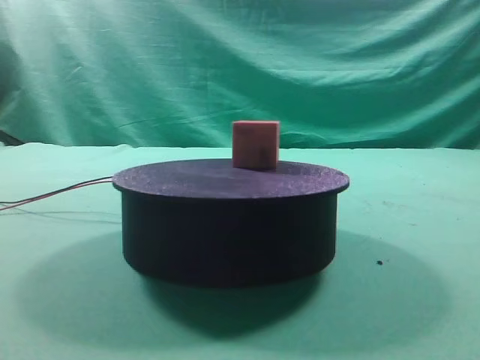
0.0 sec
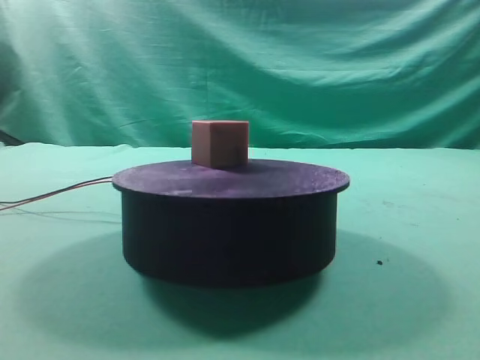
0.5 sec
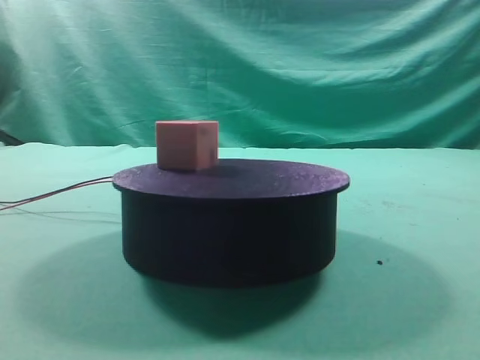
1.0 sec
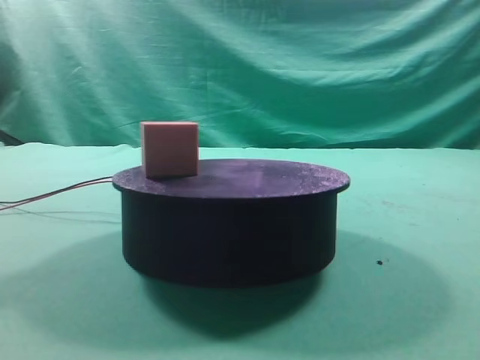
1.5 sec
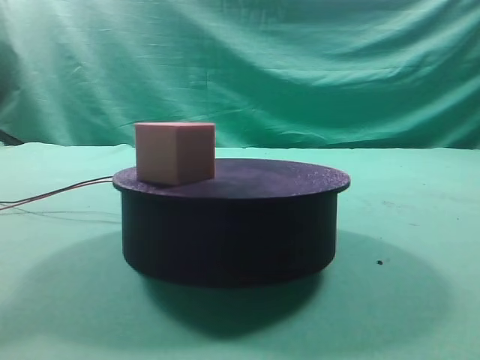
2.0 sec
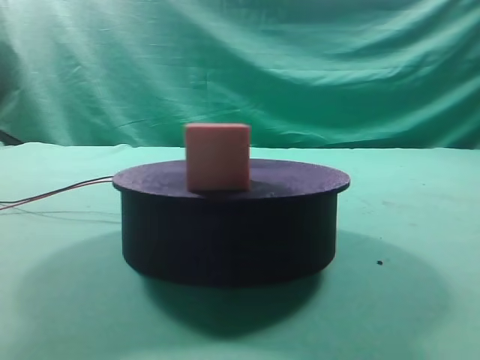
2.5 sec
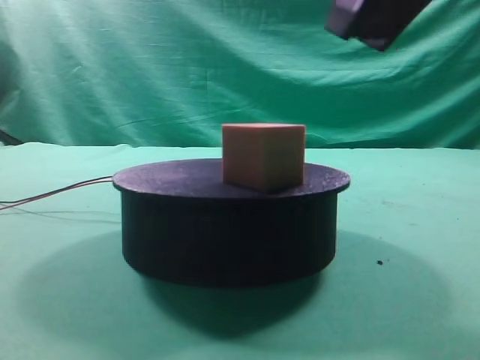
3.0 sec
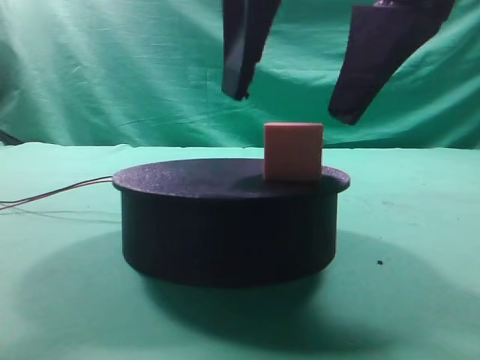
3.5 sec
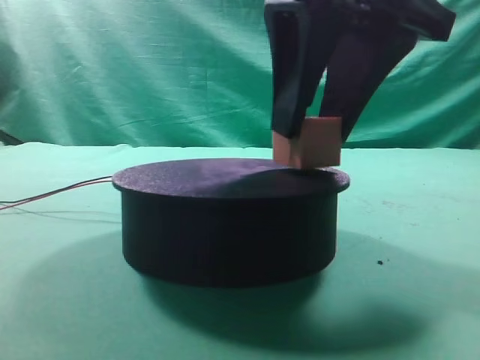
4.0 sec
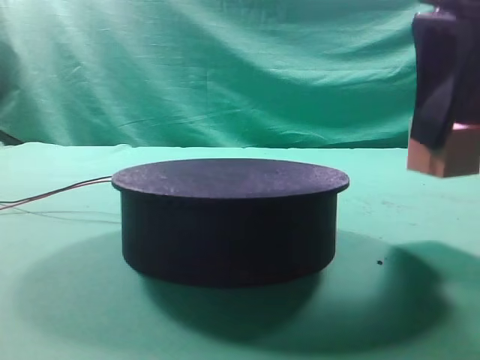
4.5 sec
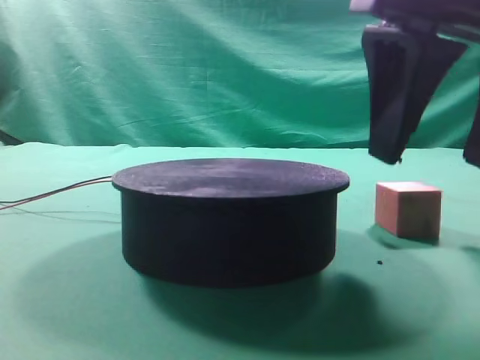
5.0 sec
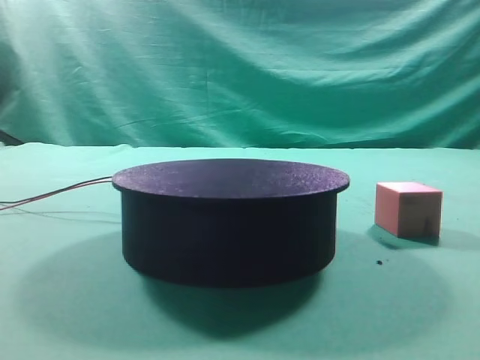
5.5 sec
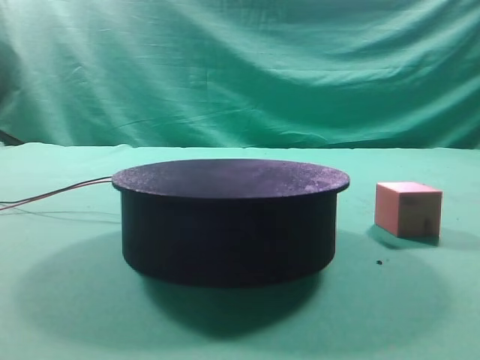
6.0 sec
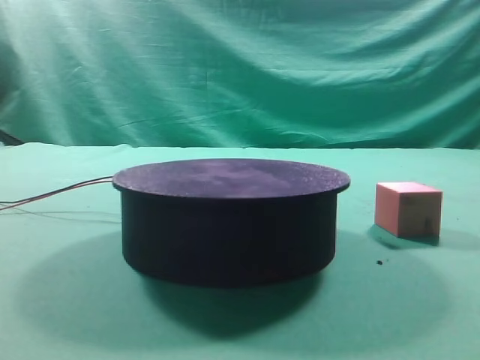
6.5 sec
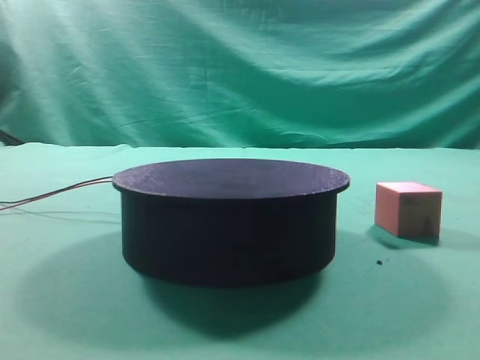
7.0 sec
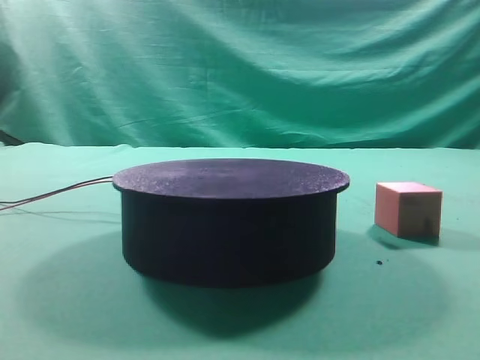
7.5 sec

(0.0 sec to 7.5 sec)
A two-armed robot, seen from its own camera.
Task of the whole recording: grasp the rotating cube-shaped block on the turntable and place it on the table.
Step, 0.0 sec - 4.0 sec: Grasp the rotating cube-shaped block on the turntable.
Step, 4.5 sec - 5.0 sec: Place the cube on the desk.

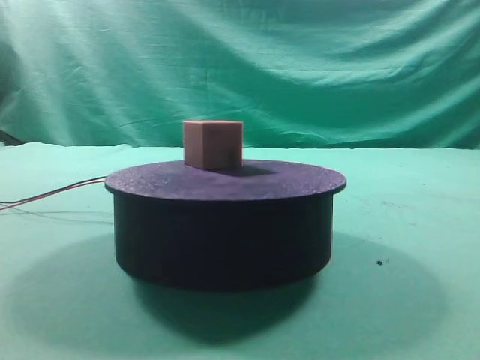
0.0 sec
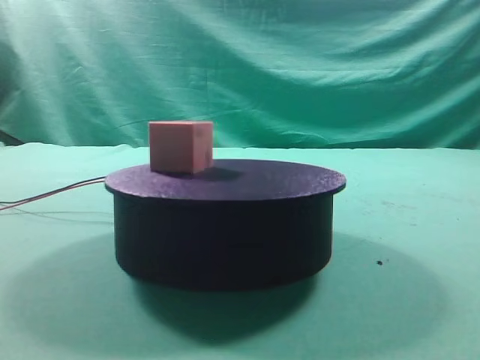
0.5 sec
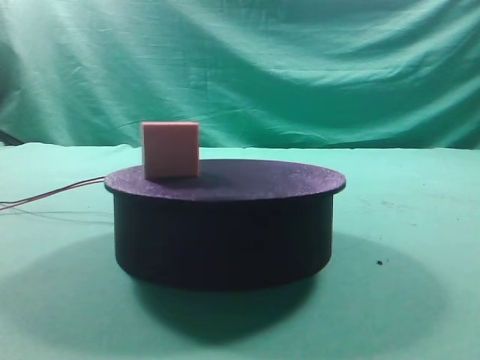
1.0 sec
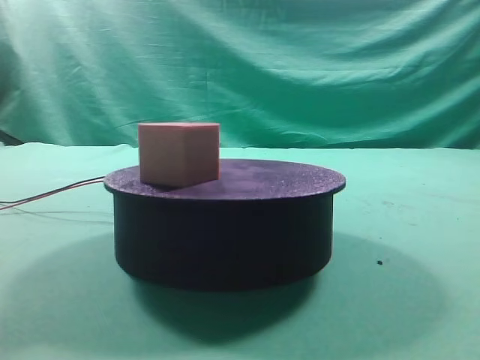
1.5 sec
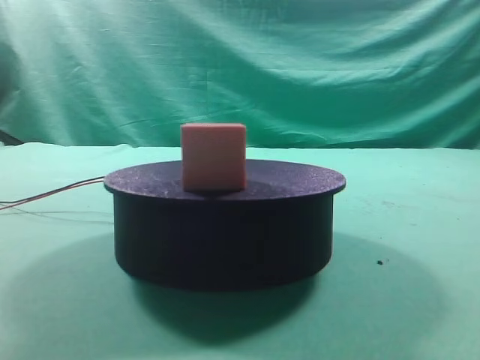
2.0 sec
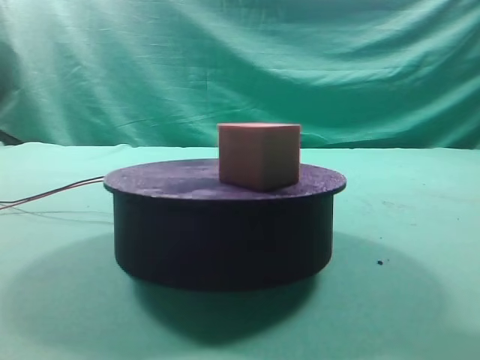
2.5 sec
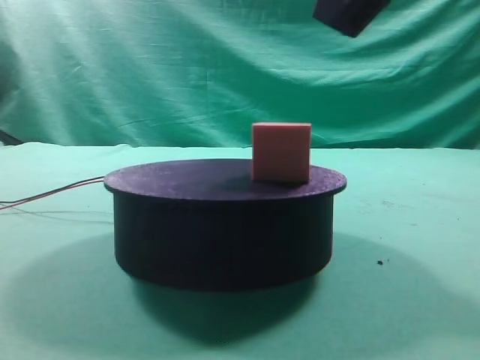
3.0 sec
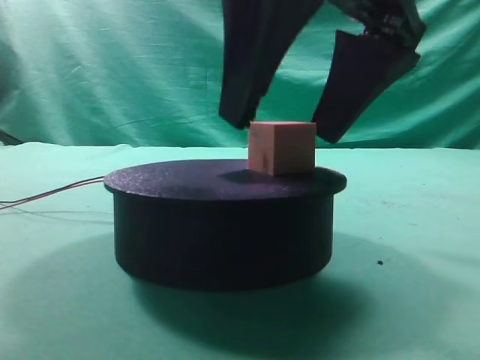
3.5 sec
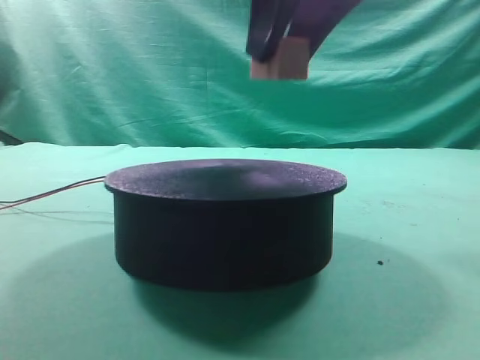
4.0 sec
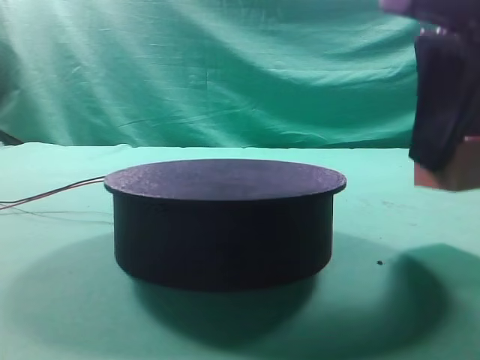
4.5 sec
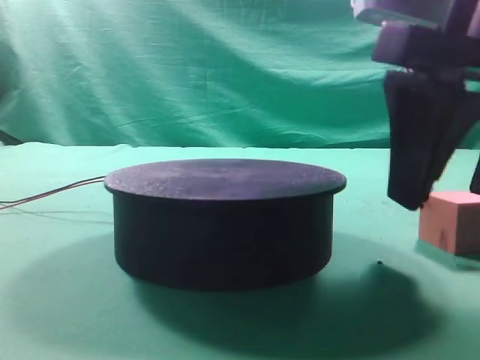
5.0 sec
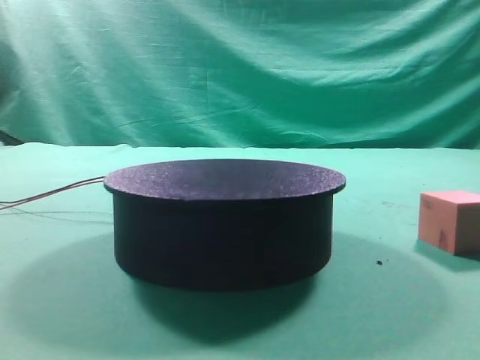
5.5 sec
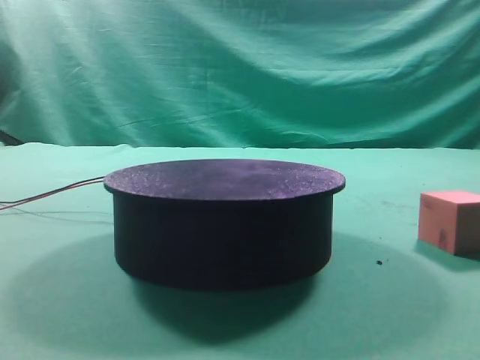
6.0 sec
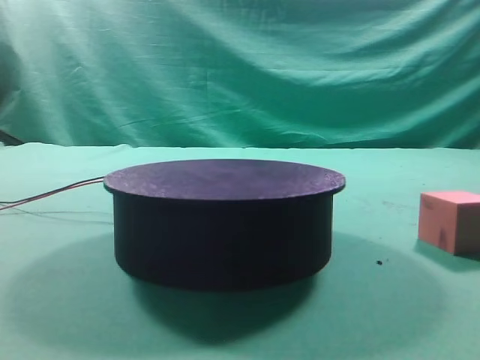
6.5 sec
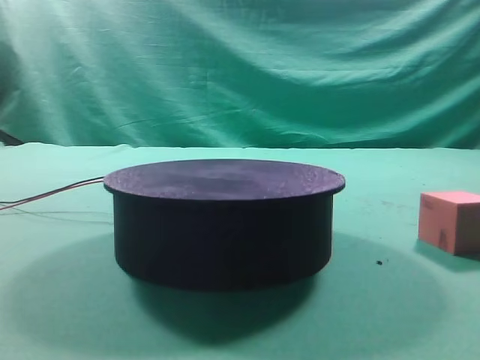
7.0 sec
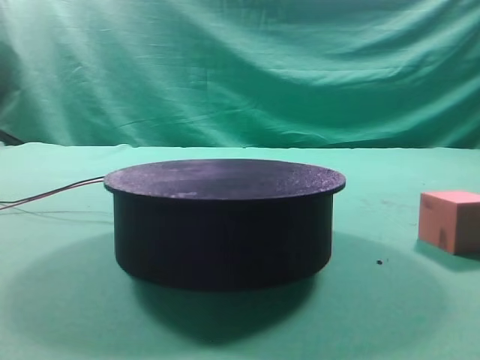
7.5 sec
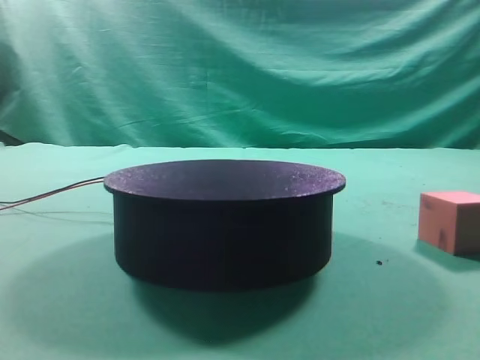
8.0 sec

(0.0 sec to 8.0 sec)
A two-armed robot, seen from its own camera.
Task of the whole recording: grasp the rotating cube-shaped block on the turntable and place it on the table.
Step, 0.0 sec - 3.5 sec: Grasp the rotating cube-shaped block on the turntable.
Step, 4.0 sec - 5.0 sec: Place the cube on the desk.

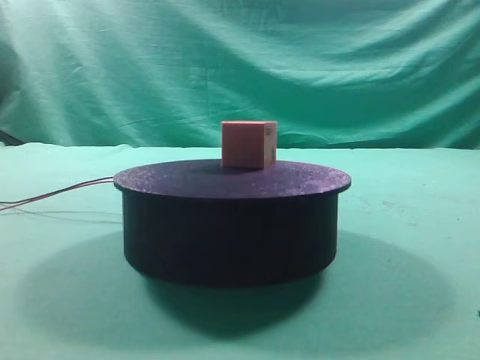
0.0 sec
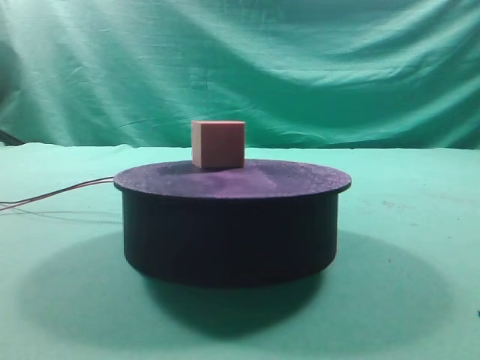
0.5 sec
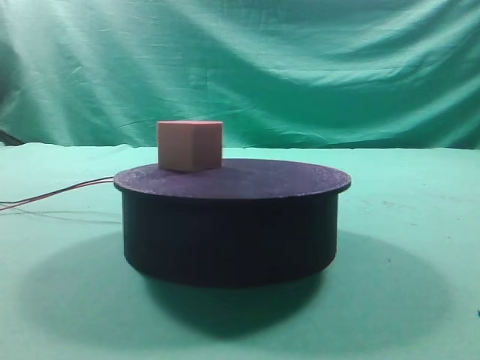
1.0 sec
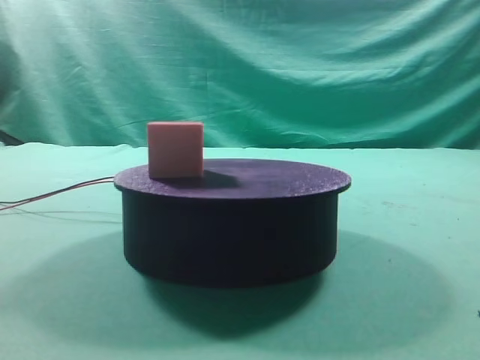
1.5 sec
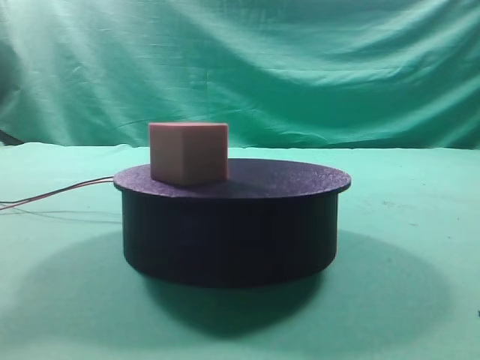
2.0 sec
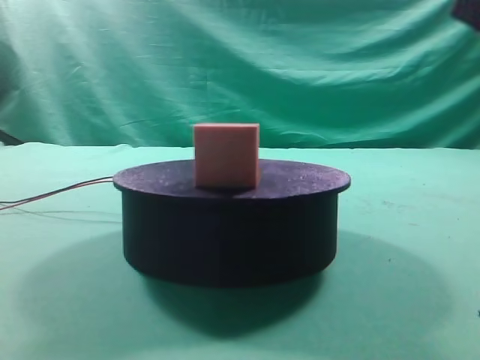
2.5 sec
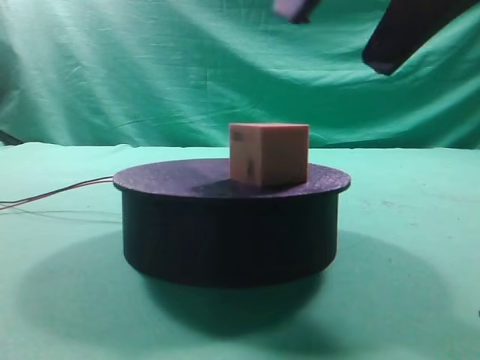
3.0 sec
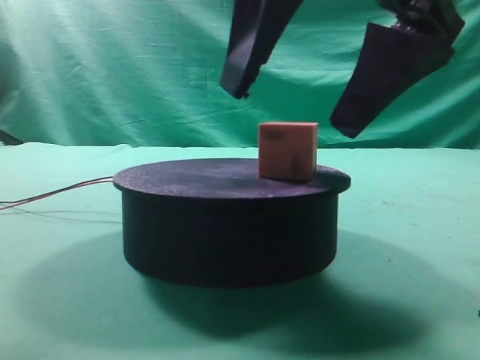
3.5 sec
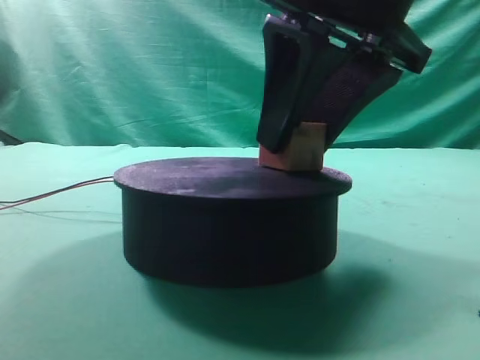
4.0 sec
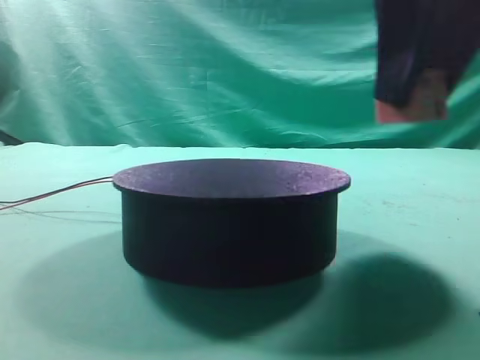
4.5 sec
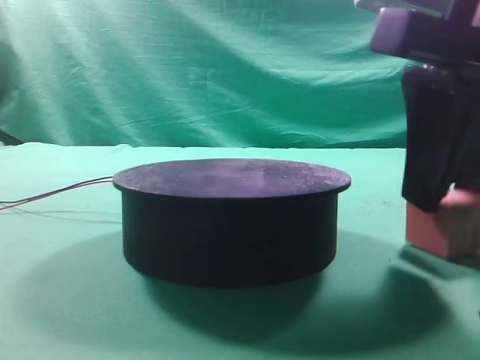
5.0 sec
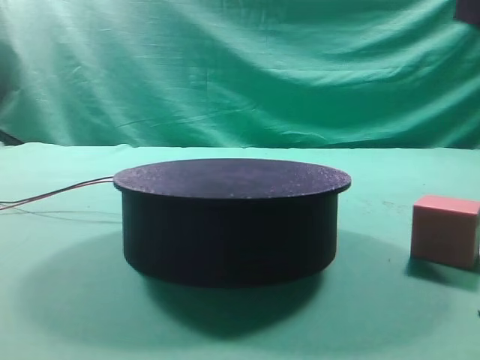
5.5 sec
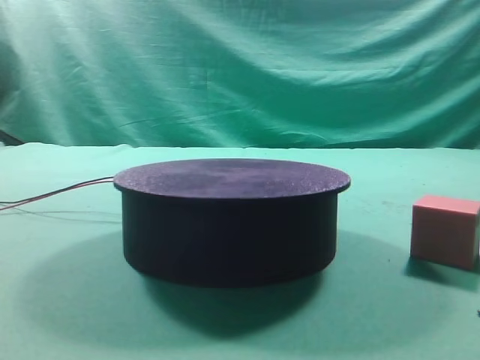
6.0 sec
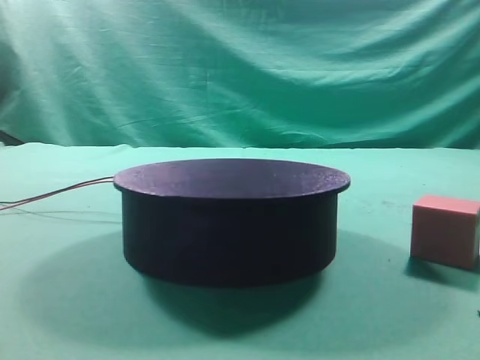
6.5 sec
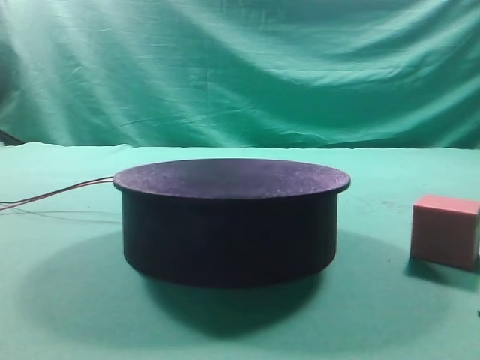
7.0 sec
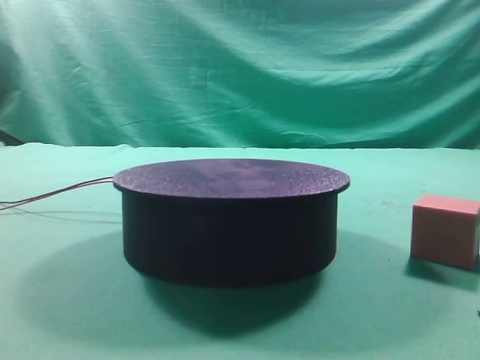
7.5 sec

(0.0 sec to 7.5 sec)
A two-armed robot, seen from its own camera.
Task of the whole recording: grasp the rotating cube-shaped block on the turntable and place it on the table.
Step, 0.0 sec - 4.0 sec: Grasp the rotating cube-shaped block on the turntable.
Step, 4.5 sec - 5.0 sec: Place the cube on the desk.

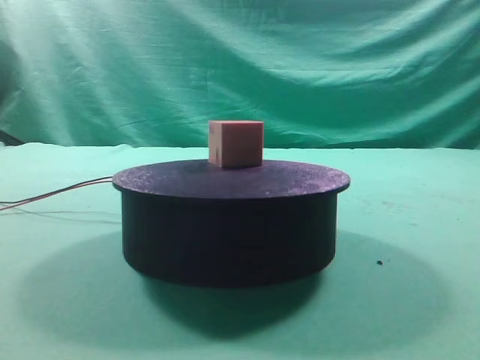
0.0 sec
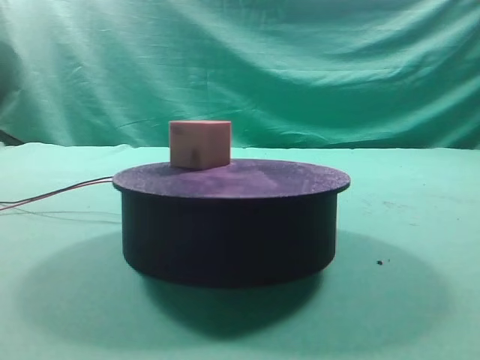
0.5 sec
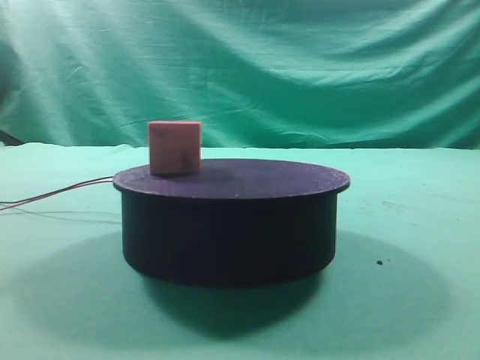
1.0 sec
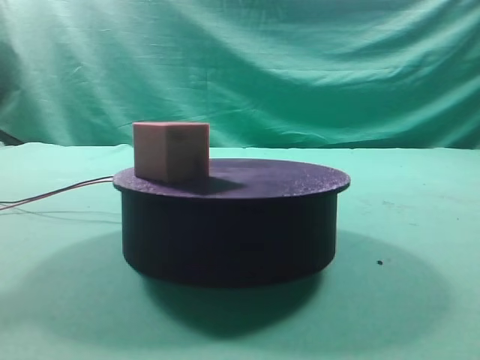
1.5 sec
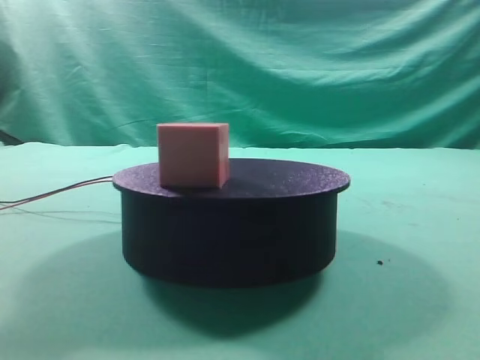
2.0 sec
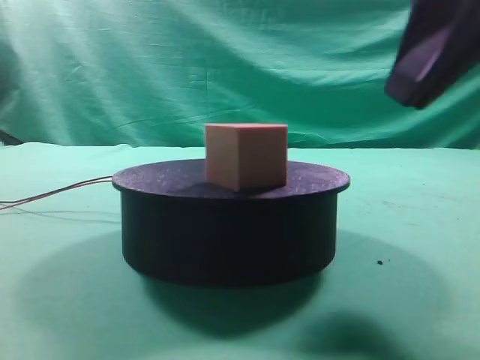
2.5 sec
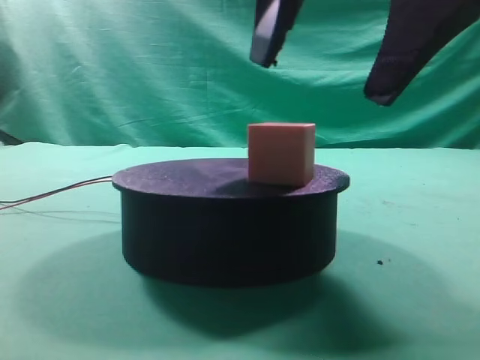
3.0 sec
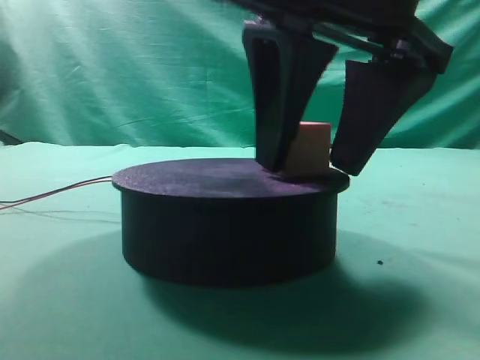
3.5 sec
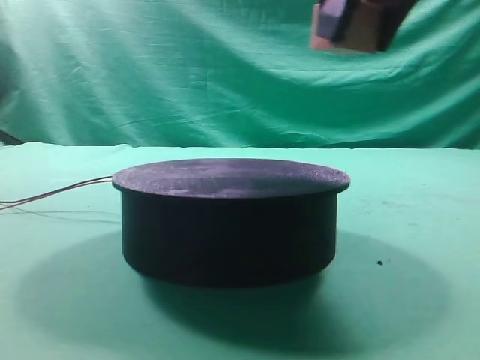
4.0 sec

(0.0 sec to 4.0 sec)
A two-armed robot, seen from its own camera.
Task of the whole recording: grasp the rotating cube-shaped block on the turntable and place it on the table.
Step, 0.0 sec - 3.5 sec: Grasp the rotating cube-shaped block on the turntable.
